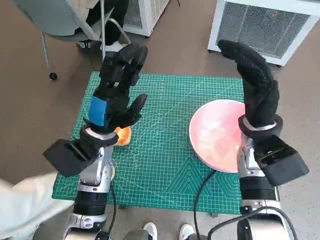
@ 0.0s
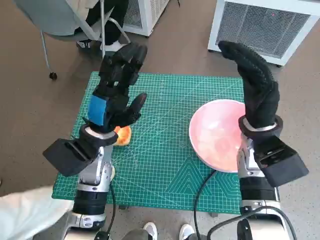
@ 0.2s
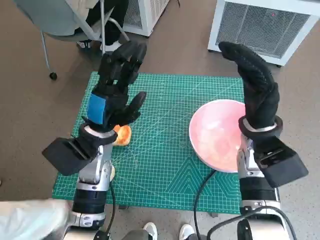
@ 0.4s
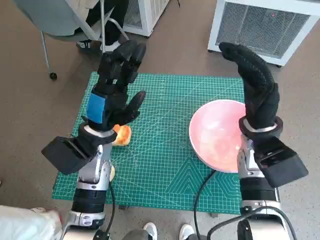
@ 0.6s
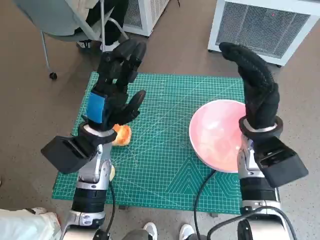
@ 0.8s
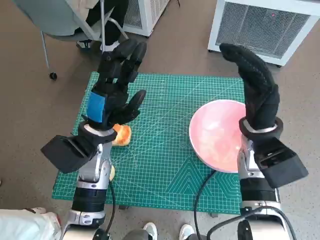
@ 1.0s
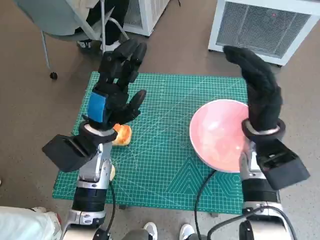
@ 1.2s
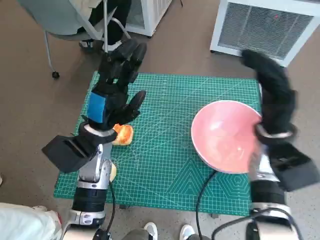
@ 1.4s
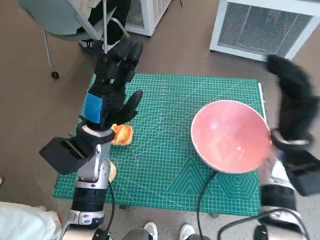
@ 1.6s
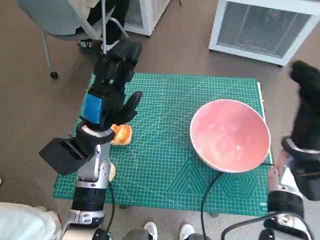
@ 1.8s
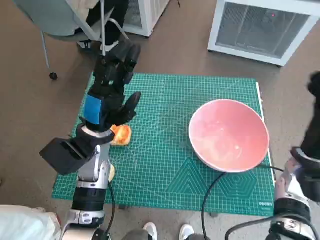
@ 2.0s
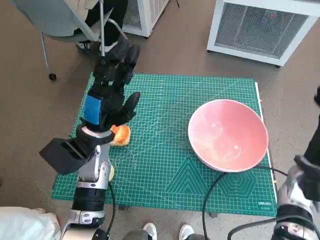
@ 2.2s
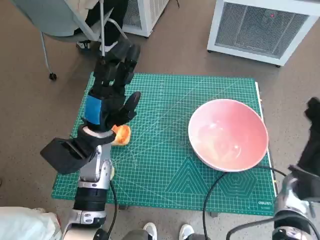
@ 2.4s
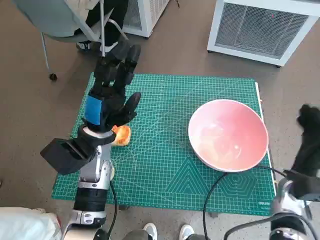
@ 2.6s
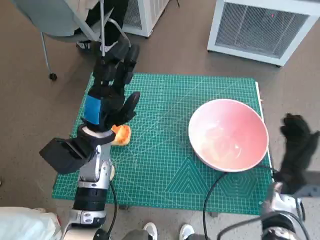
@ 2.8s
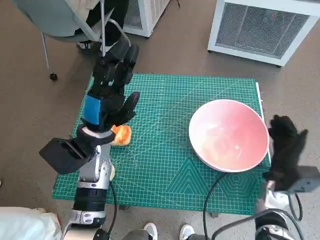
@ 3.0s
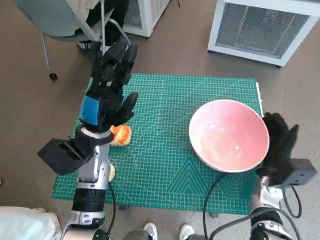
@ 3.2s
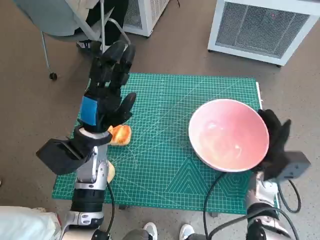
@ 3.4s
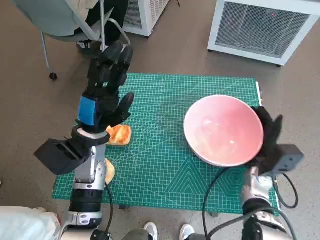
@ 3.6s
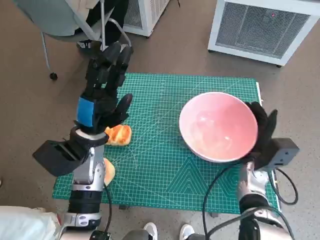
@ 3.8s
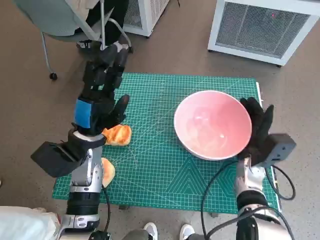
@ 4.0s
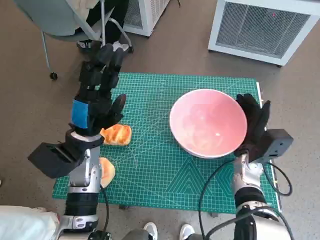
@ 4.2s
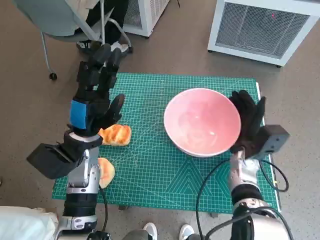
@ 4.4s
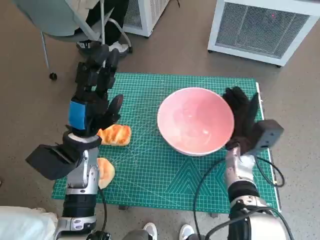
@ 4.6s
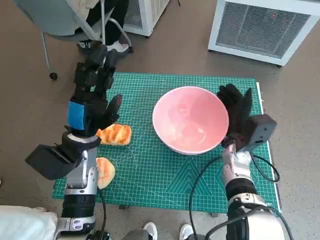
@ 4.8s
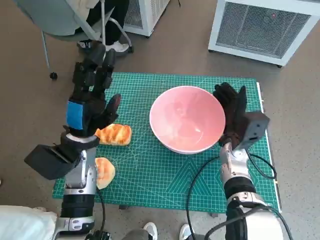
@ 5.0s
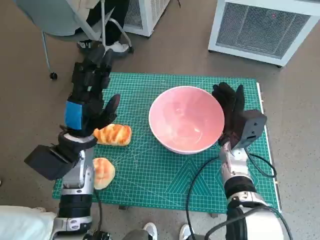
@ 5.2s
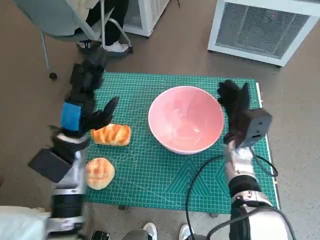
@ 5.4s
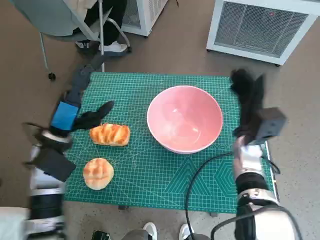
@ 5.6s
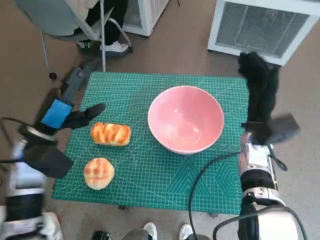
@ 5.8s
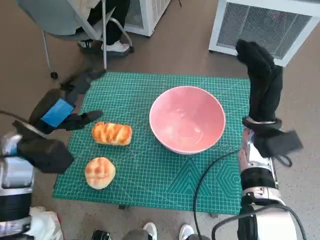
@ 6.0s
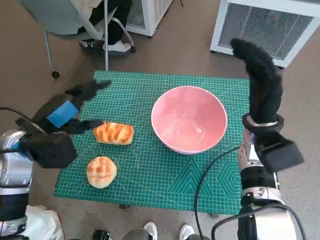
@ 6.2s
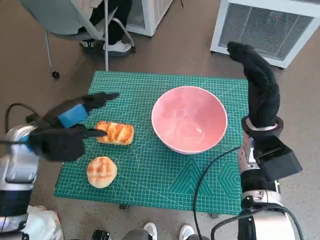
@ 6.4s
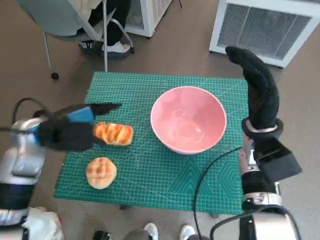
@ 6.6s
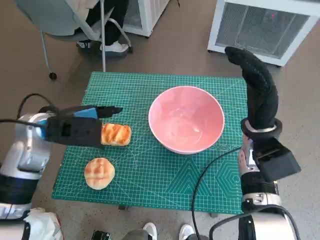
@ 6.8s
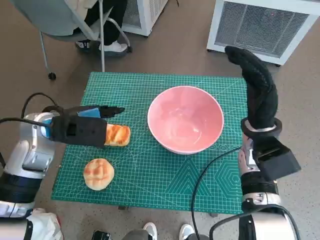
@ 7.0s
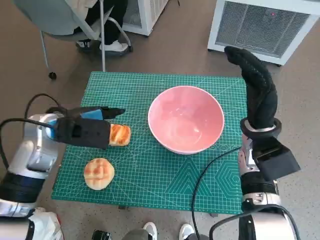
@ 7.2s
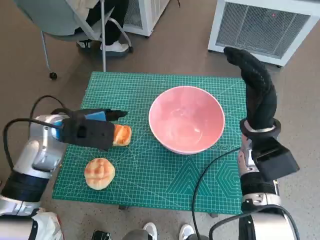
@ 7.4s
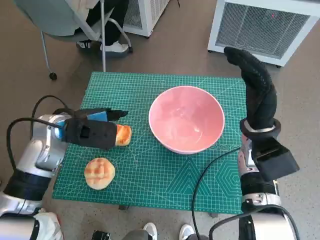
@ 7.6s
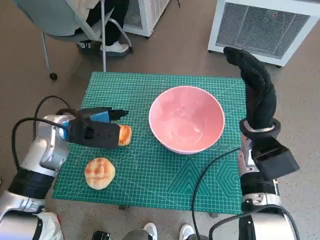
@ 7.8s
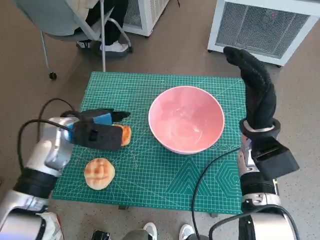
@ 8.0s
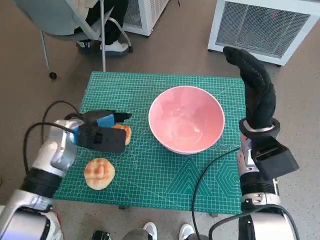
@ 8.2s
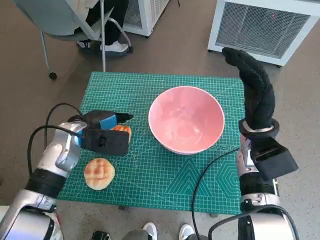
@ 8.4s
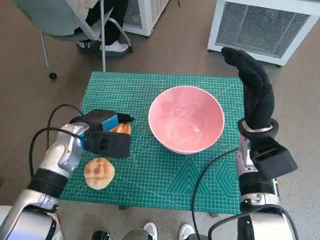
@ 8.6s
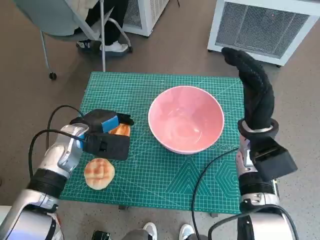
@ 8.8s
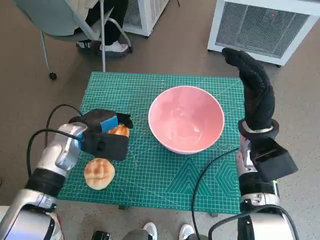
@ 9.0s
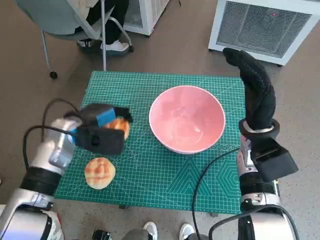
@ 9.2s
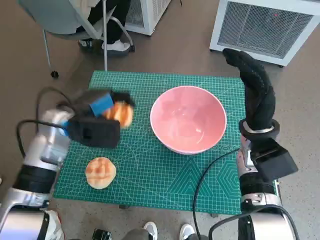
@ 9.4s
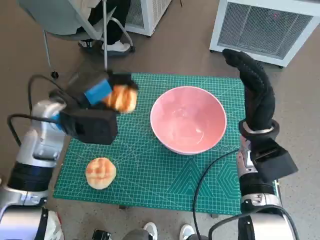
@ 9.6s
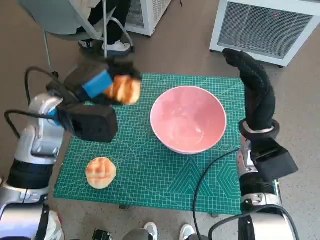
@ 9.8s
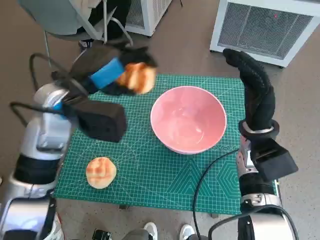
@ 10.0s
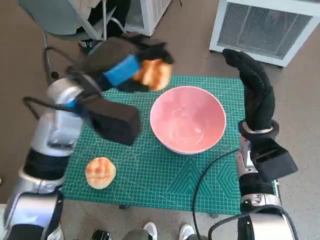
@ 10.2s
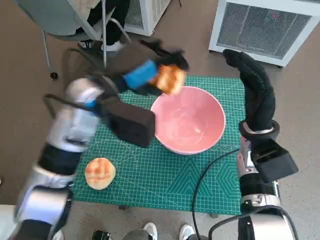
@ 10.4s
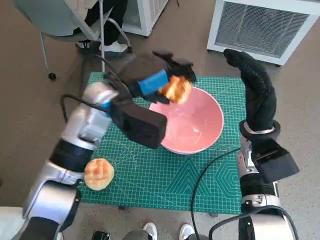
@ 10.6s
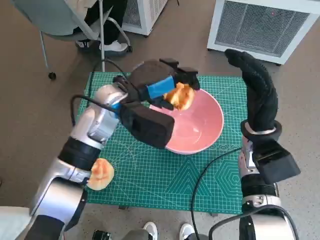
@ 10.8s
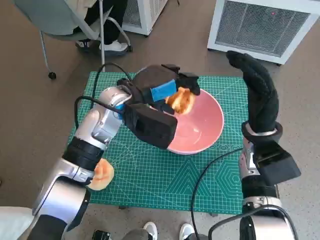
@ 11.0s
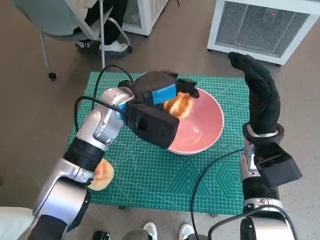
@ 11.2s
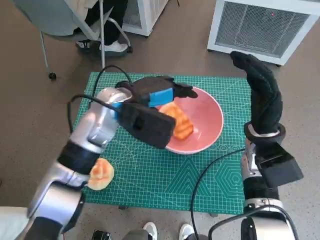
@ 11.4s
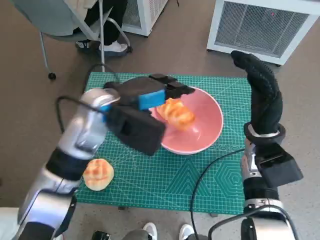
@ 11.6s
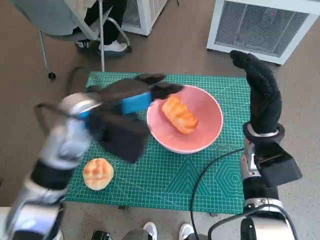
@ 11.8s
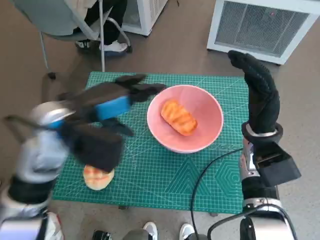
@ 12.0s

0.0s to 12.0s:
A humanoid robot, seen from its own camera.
Task of the whole recording: Push the bowl to the center of the table and put the bread into the bowl.
Step, 0.0s to 5.4s: Move the pink bowl to the center of table with right hand.
Step, 5.6s to 8.4s: Grasp the long bread with left hand.
1.6s to 3.0s: The right hand moves downward, about 15 cm.
3.0s to 4.4s: The right hand heads to the left and forward, covering roughly 10 cm.
4.4s to 6.0s: The left hand shifts approximately 10 cm to the left. Meanwhile the right hand moves upward, roughly 10 cm.
6.0s to 7.6s: The left hand moves roughly 5 cm.
7.6s to 9.0s: The left hand shifts about 5 cm downward.
9.0s to 10.4s: The left hand moves upward and to the right, roughly 15 cm.

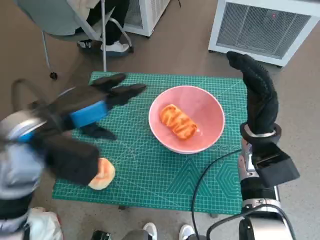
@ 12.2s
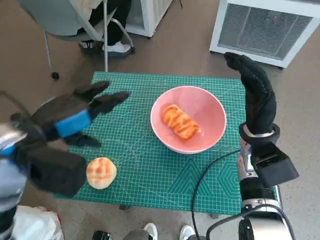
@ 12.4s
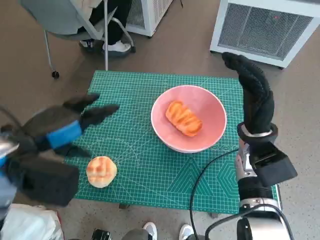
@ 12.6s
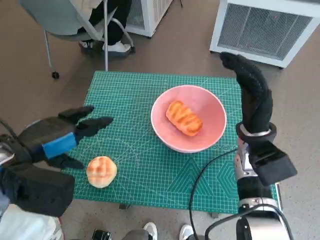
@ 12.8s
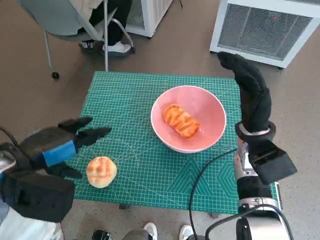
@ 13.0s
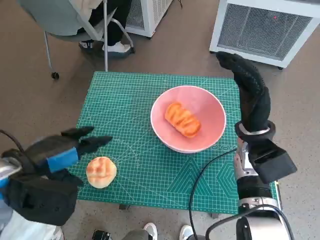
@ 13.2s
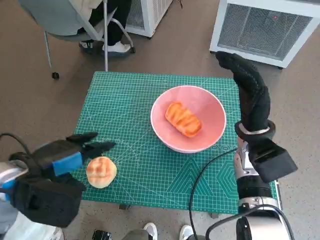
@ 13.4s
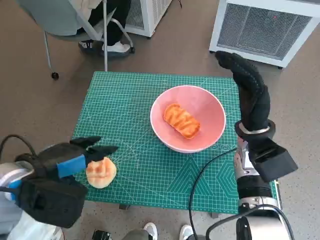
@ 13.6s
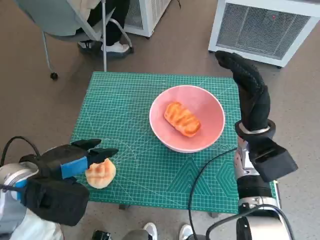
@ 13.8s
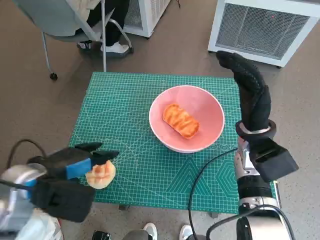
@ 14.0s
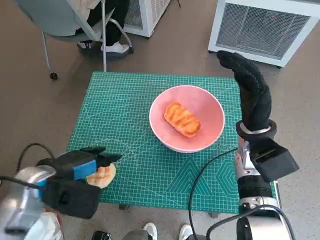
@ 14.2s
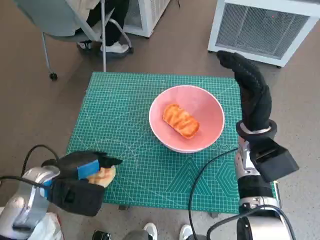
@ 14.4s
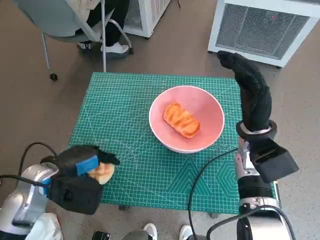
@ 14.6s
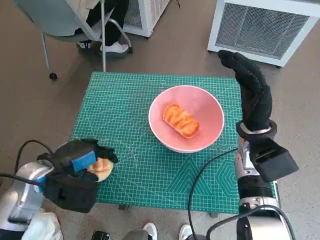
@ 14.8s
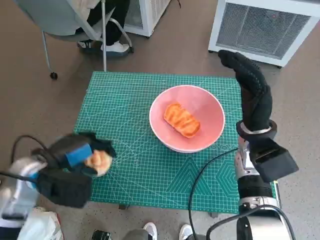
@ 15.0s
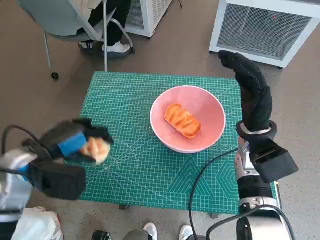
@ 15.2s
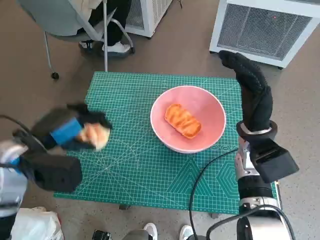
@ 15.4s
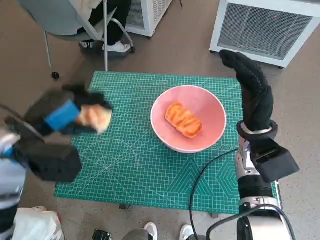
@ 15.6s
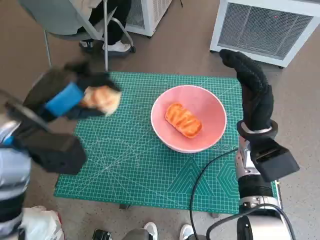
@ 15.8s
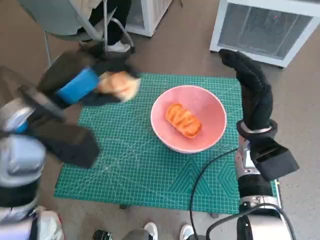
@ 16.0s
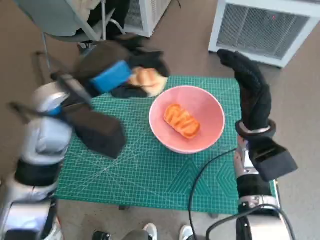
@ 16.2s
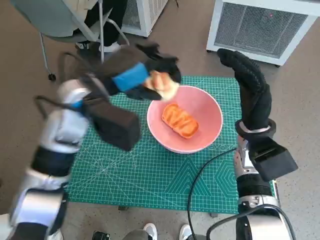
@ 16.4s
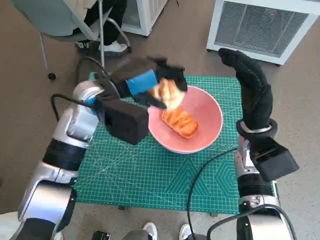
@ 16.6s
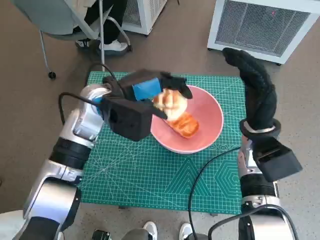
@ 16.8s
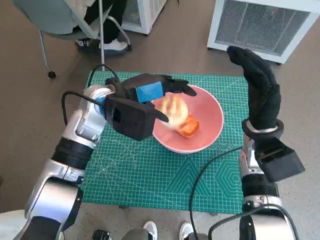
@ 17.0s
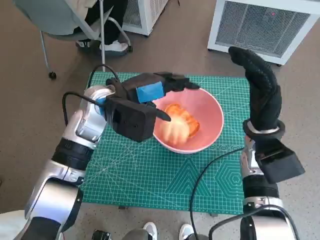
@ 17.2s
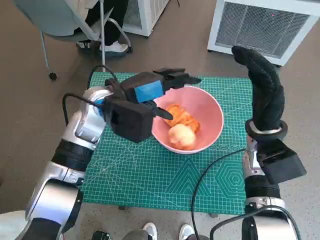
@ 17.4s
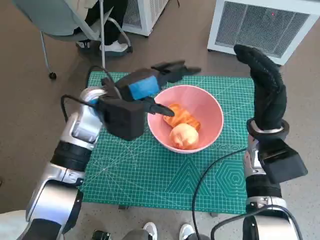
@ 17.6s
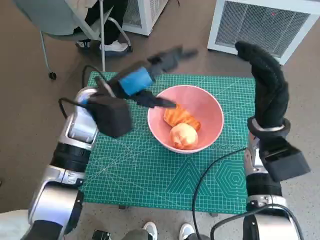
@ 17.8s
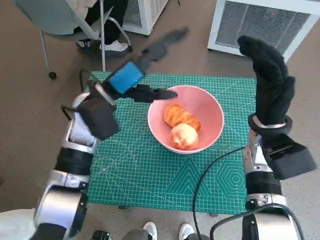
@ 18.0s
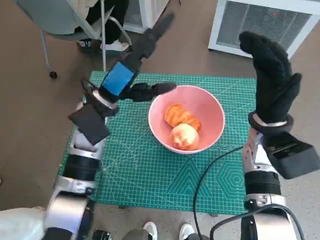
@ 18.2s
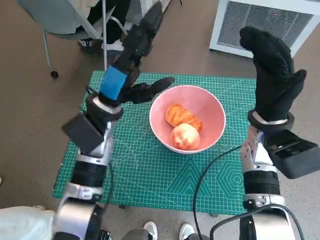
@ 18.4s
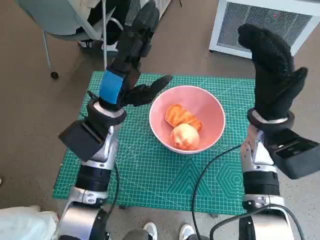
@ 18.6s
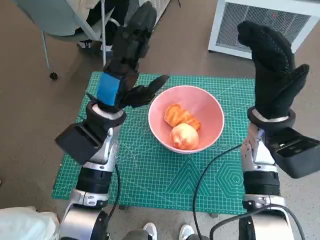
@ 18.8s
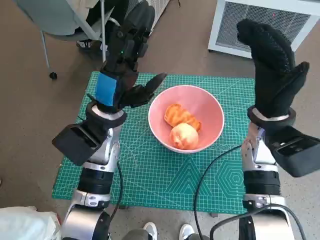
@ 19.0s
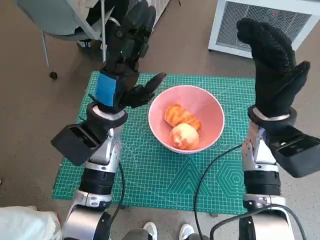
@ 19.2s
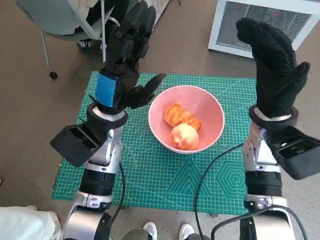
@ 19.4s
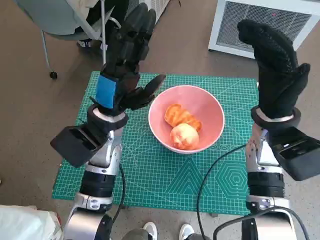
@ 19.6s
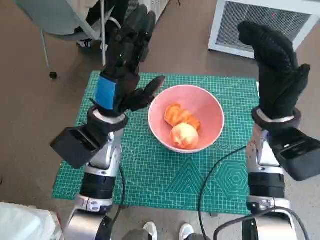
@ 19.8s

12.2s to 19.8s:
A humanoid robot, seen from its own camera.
Task of the whole recording: Push the bowl to the center of the table and put the bread into the bowl.
Step, 12.4s to 14.6s: Grasp the round bread with left hand.
Step, 15.0s to 17.6s: Place the round bread in pink bowl with left hand.
12.2s to 13.8s: The left hand is displaced downward and backward by approximately 10 cm.
13.8s to 15.2s: The hands move only a little.
15.2s to 16.8s: The left hand moves to the right, forward and upward, approximately 15 cm.

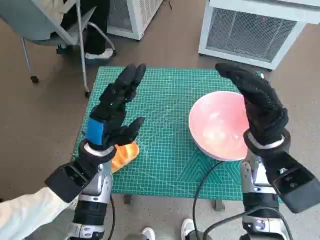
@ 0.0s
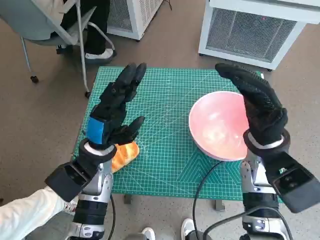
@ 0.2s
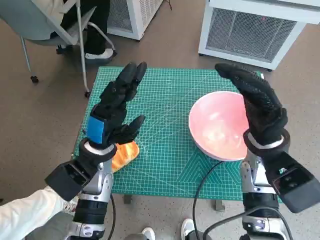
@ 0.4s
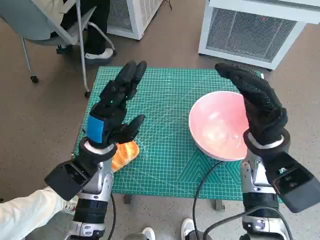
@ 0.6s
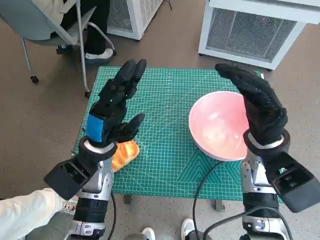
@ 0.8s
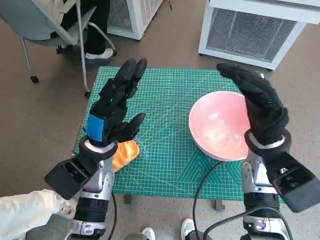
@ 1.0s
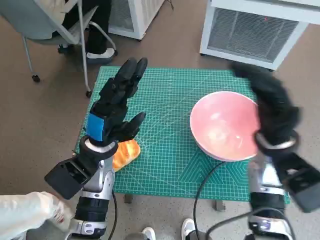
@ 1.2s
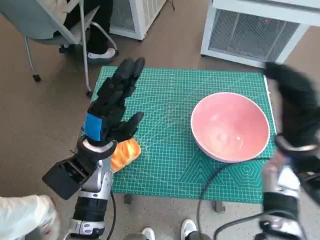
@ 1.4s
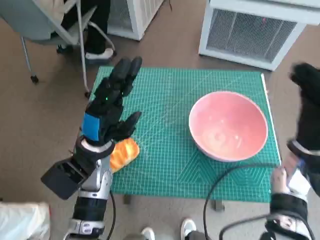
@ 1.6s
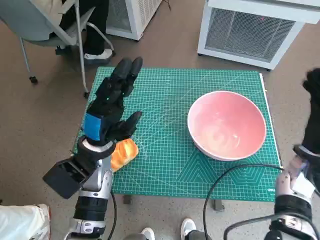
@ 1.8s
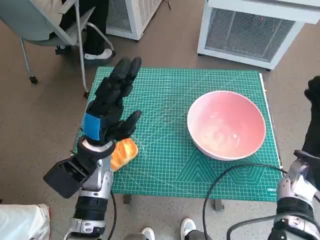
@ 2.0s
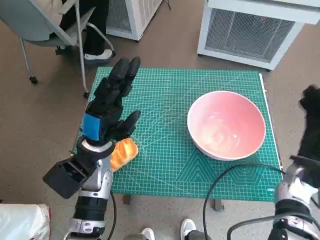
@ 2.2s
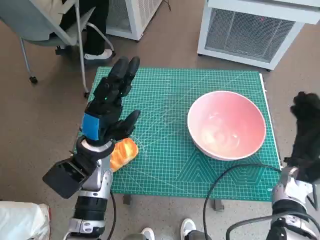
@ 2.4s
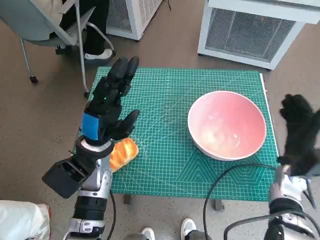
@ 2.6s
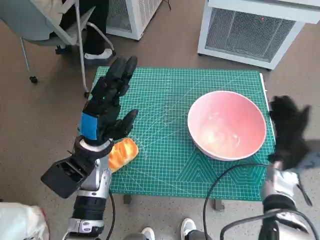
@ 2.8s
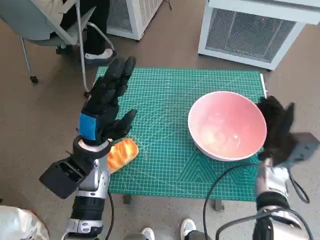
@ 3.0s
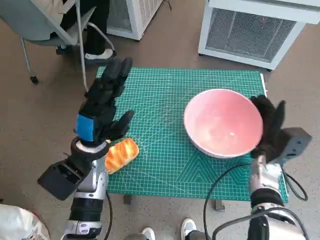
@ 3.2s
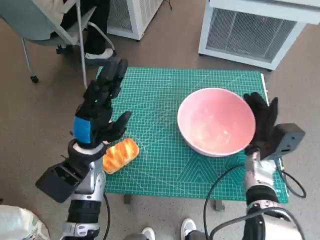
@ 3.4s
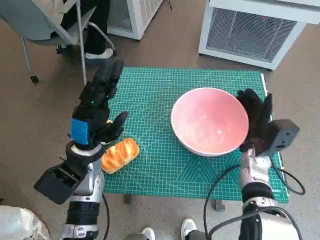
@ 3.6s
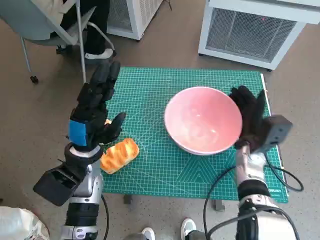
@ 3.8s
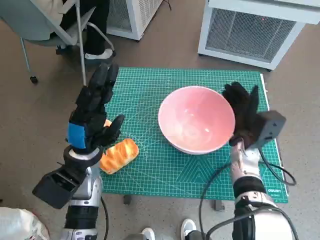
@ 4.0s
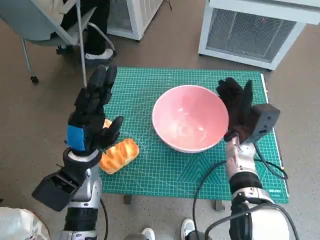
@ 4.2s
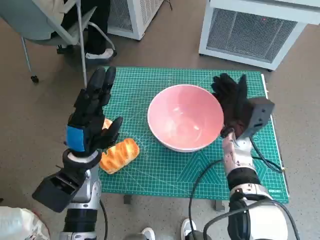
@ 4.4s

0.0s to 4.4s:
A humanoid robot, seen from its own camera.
Task of the whole recording: Push the bowl to the center of the table and put the bread into the bowl.
1.4s to 3.0s: The right hand is displaced downward by about 10 cm.
3.0s to 4.4s: The right hand travels to the left by approximately 10 cm.
